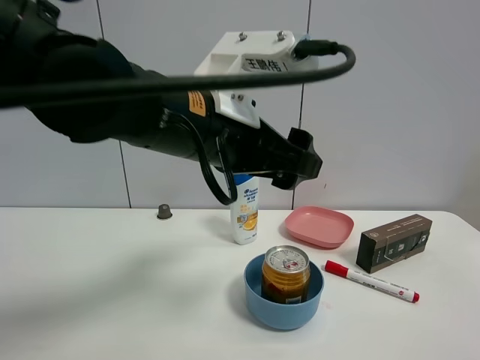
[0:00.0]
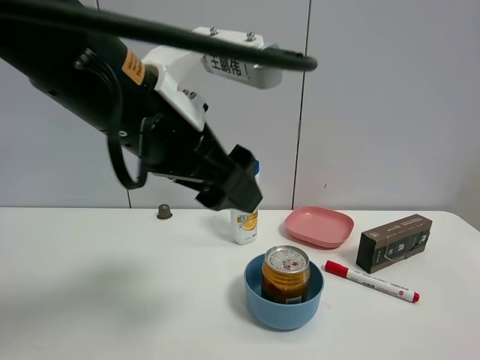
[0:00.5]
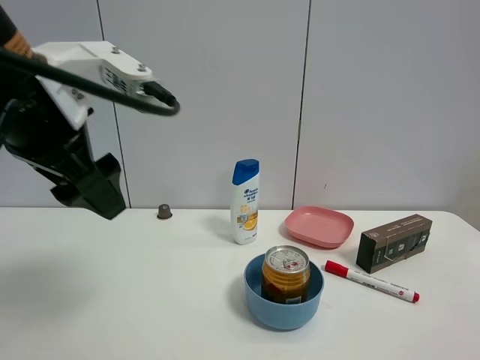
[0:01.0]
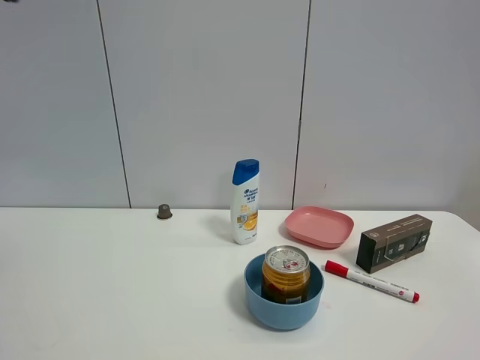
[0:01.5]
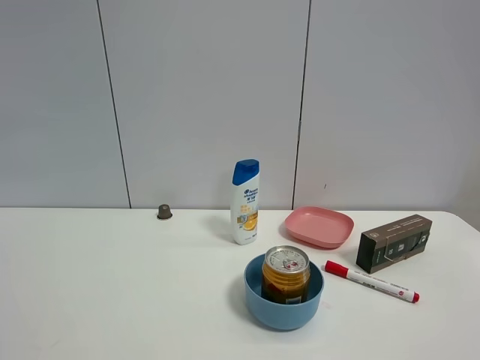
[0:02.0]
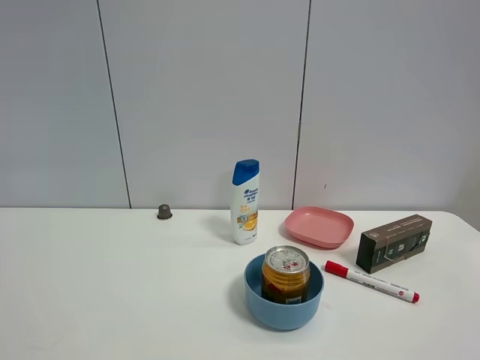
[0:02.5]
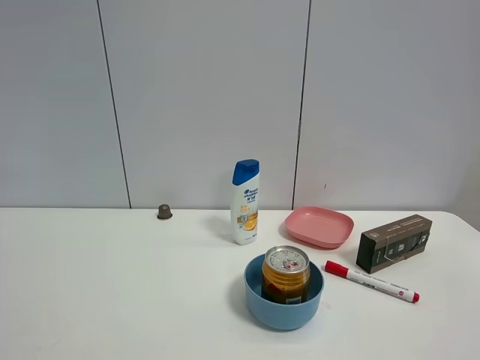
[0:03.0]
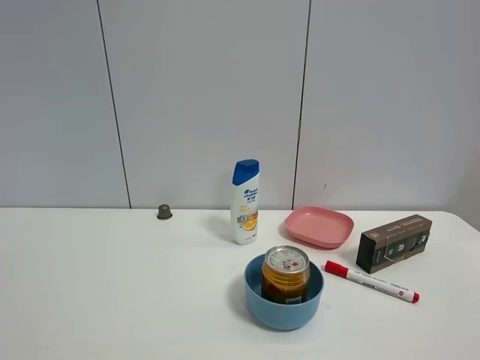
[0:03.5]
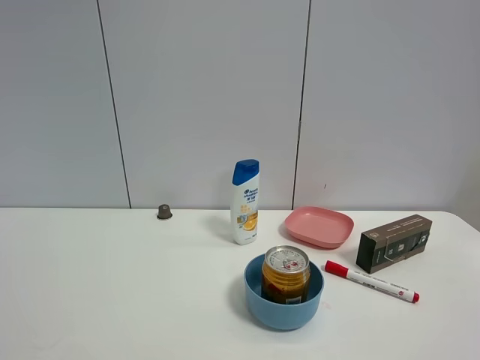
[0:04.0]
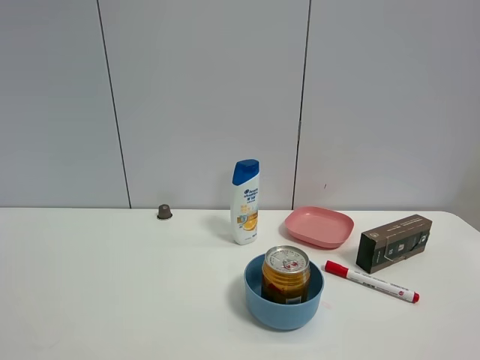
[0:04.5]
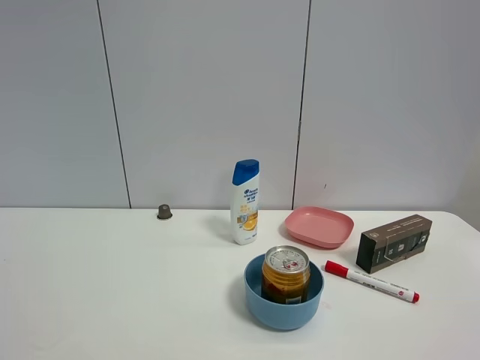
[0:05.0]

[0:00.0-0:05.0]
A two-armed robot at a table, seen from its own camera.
Task of the whole recording: the gripper move the object.
0:00.0 to 0:02.5: The left gripper is displaced to the left and backward by about 35 cm.

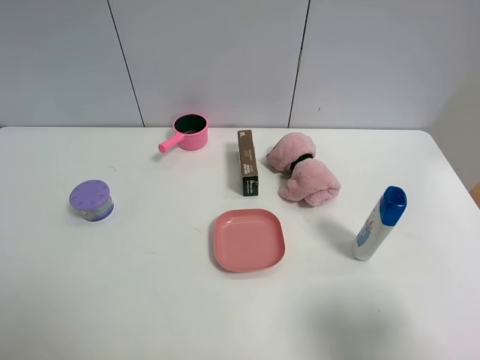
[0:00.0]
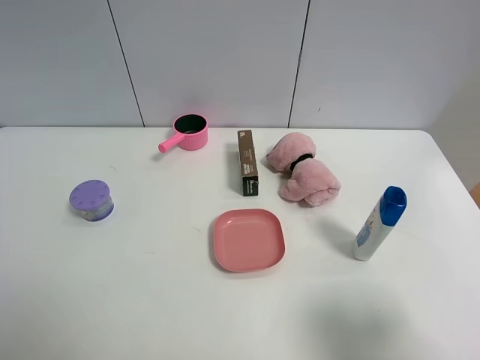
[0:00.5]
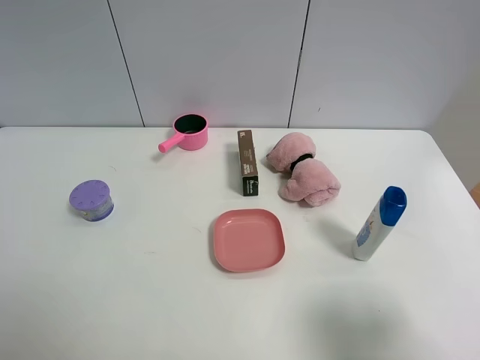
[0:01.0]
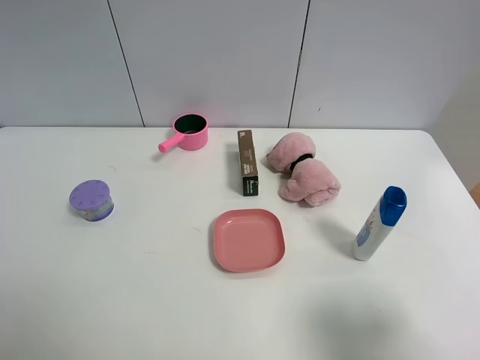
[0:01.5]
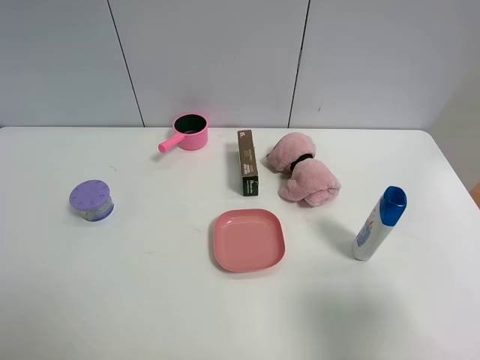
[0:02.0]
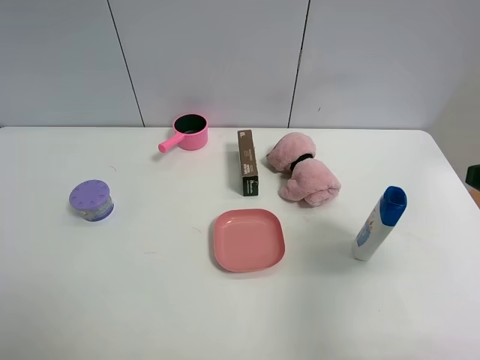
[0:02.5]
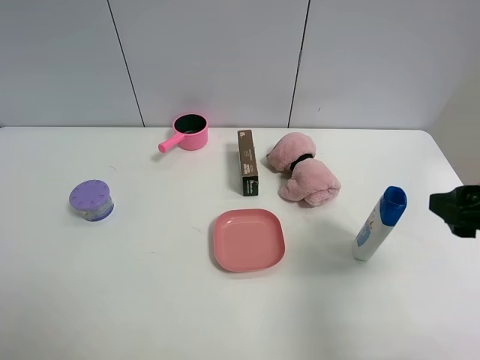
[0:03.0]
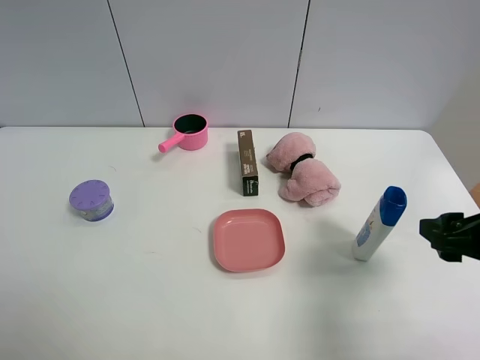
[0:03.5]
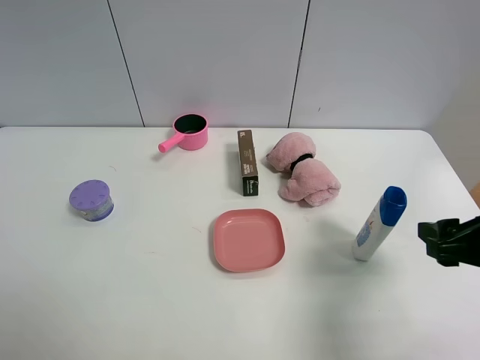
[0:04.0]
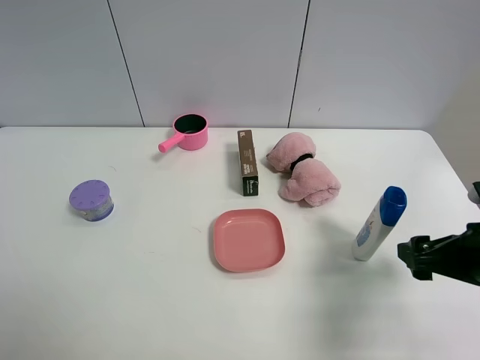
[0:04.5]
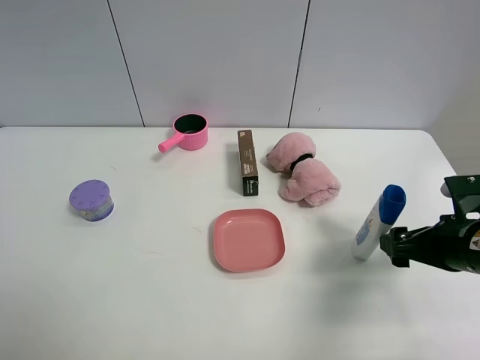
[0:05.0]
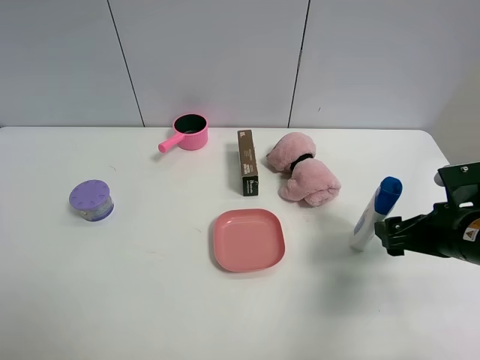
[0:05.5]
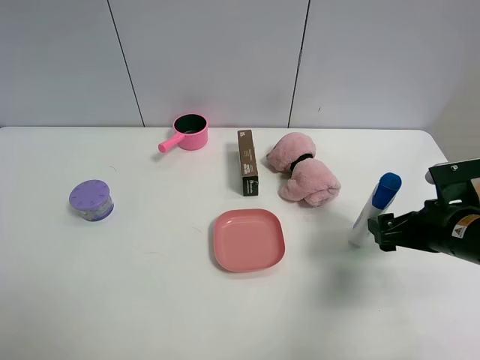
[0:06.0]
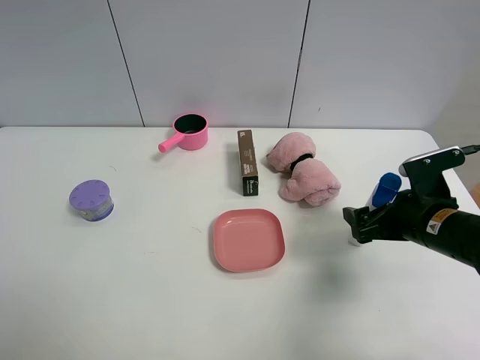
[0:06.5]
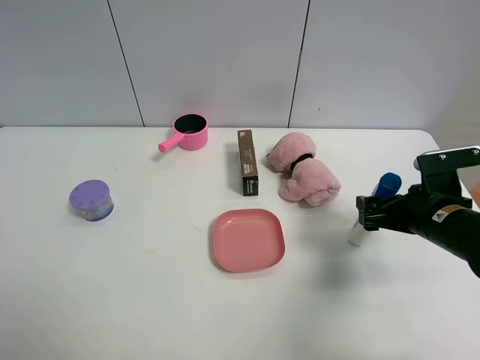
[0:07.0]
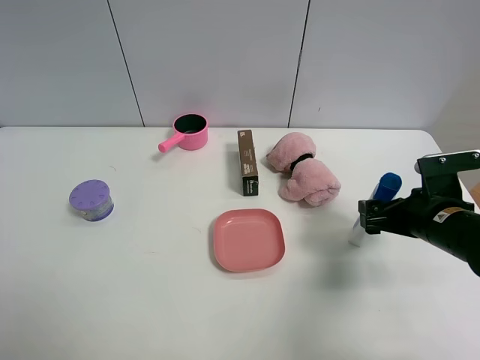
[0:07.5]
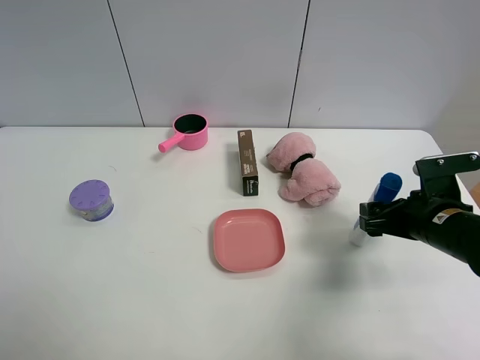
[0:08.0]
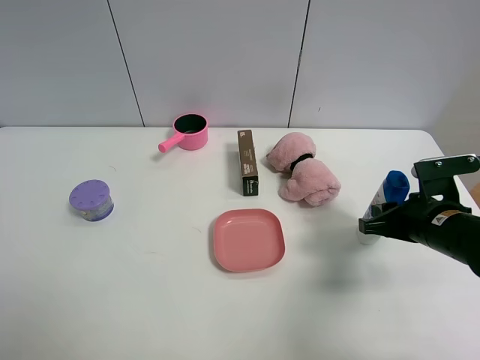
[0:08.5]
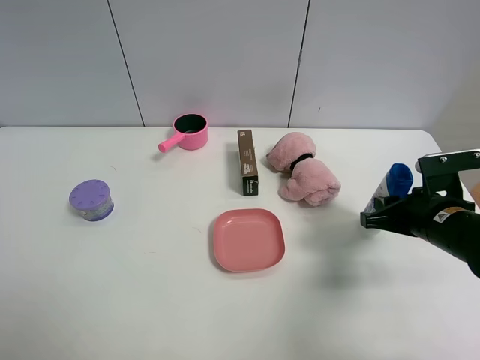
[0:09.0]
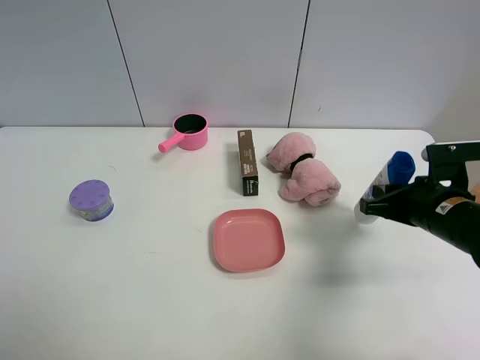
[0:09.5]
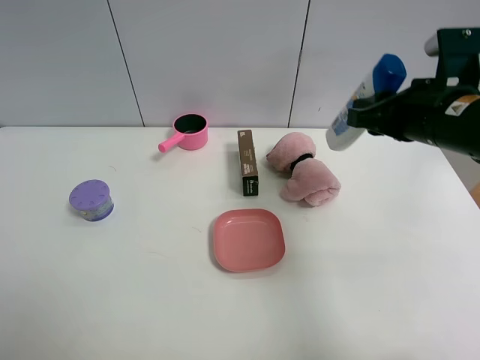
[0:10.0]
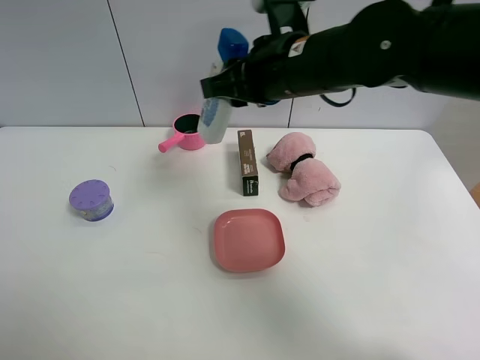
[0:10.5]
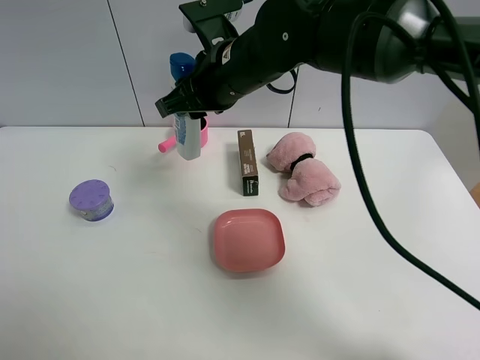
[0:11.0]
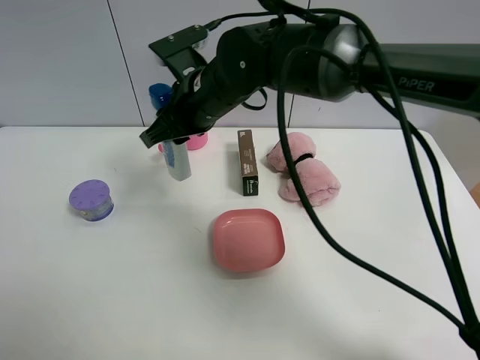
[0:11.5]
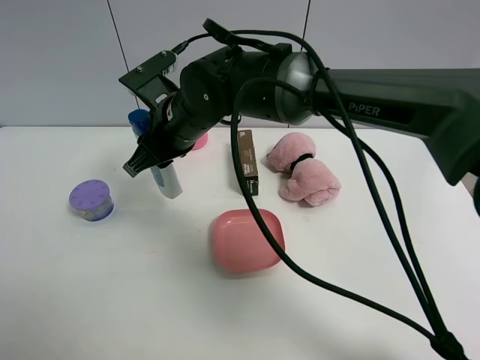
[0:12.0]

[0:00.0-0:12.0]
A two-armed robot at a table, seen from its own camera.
Task of the whole recording: the gripper move the object.
Step, 0:00.0 to 0:08.5: Grasp the shampoo with the right gripper.
0:02.0 to 0:04.0: The right gripper goes roughly 15 cm forward and downward.
0:04.0 to 0:06.0: The right gripper goes some 10 cm downward and forward.
0:06.0 to 0:08.0: The grippers make only small movements.
0:08.0 to 0:10.0: The right gripper travels upward by some 15 cm, and closes its fingers.
0:10.0 to 0:12.0: The right gripper shifts roughly 30 cm to the left.

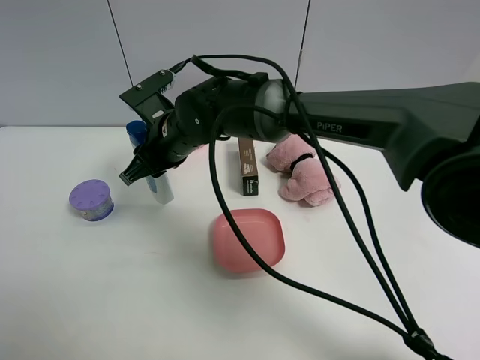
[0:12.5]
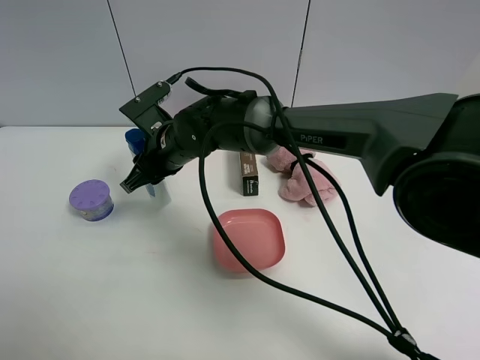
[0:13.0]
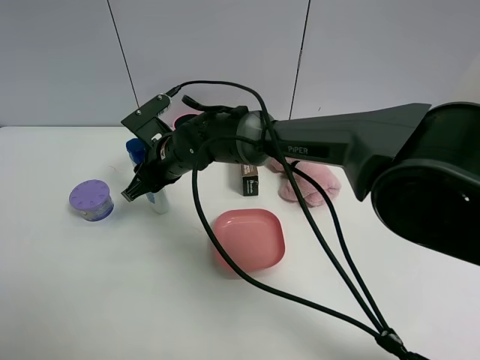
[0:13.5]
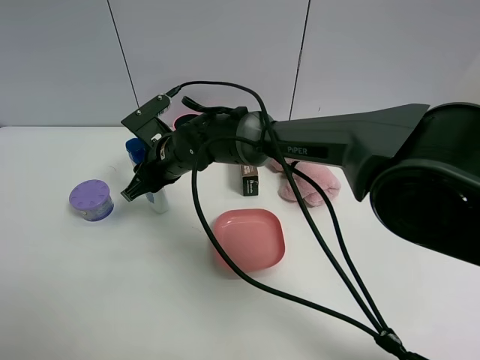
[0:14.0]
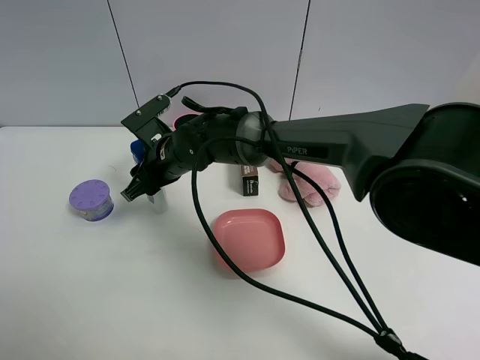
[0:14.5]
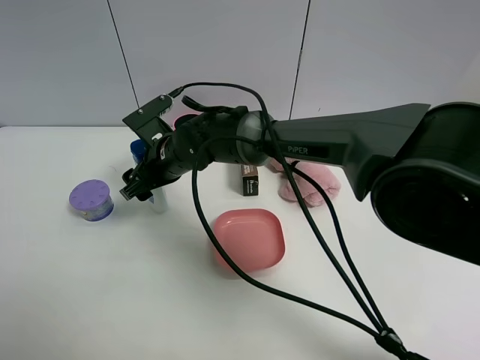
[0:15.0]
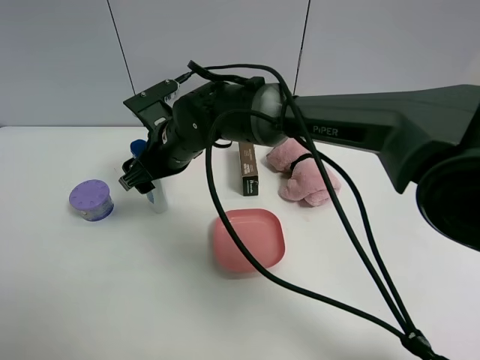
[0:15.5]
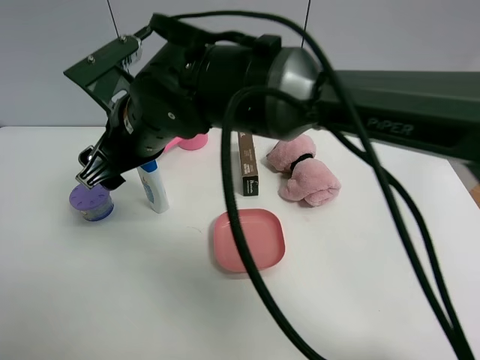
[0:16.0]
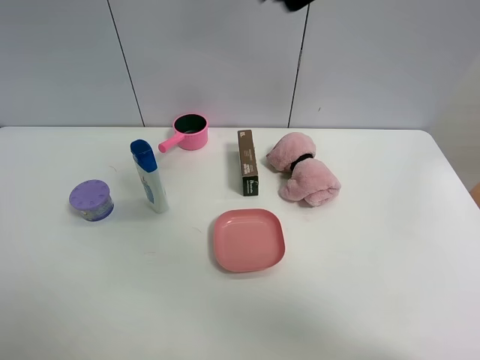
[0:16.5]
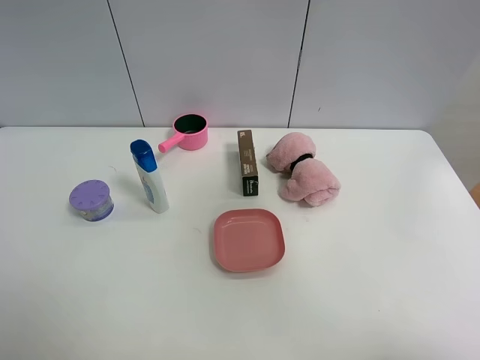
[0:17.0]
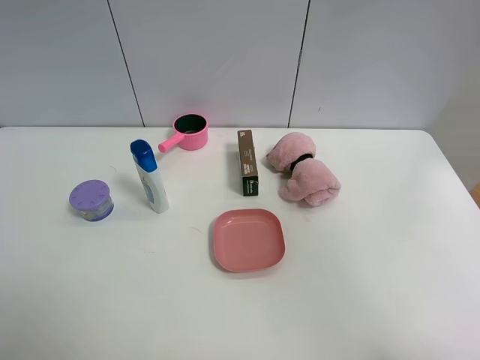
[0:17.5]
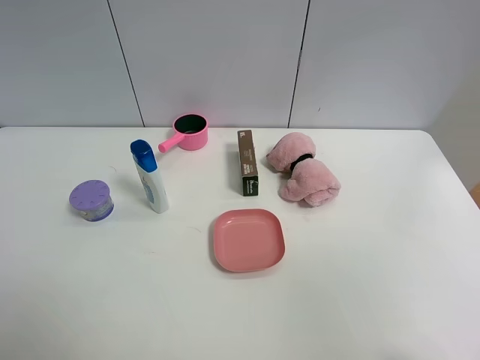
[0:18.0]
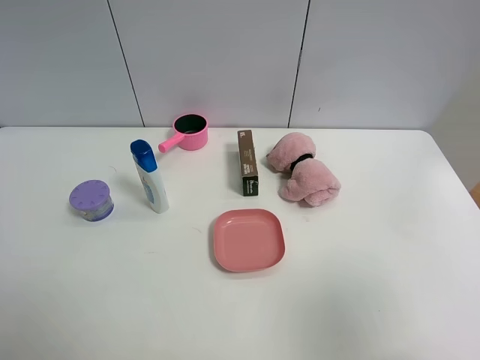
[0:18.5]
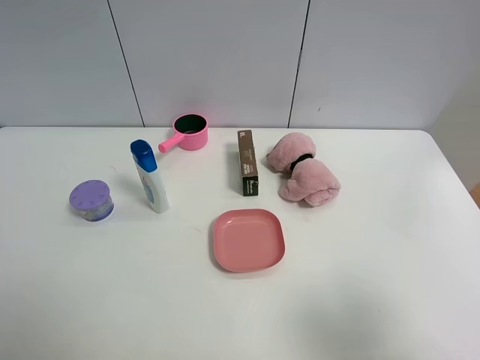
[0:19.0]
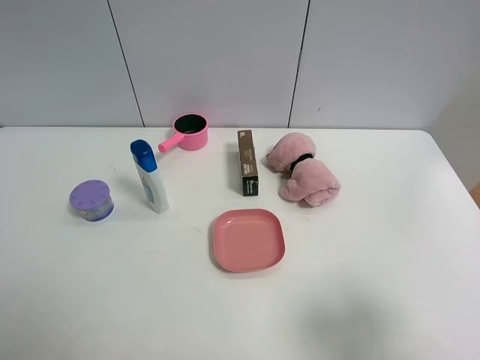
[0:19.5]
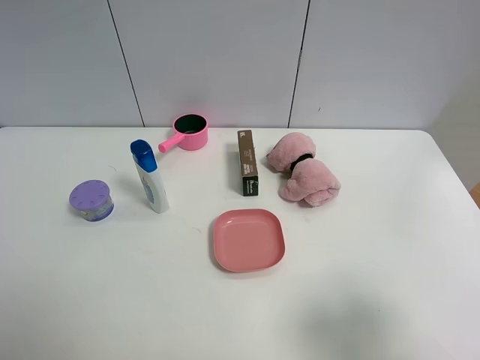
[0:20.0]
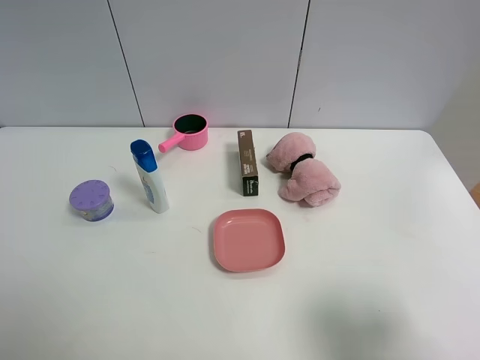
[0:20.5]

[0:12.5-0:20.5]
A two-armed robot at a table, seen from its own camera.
Task of the whole recording: the gripper move the object.
Step, 0:12.5 to 0:15.0: Place the shampoo on the table with the right gripper.
0:12.5 to 0:14.5: The right gripper shifts by about 5 cm.
0:14.5 to 0:16.5: The right gripper goes about 40 cm upward, to the right and backward, and opens its fingers.
0:16.5 to 0:18.5: The right gripper is displaced to the right and backward by roughly 35 cm.
0:18.5 to 0:20.5: The right gripper is displaced downward by about 10 cm.
